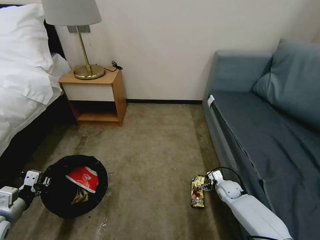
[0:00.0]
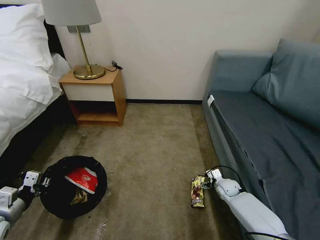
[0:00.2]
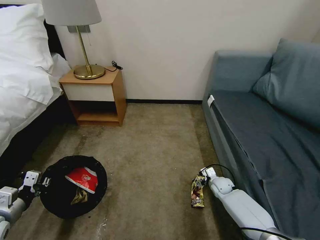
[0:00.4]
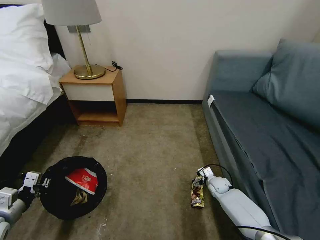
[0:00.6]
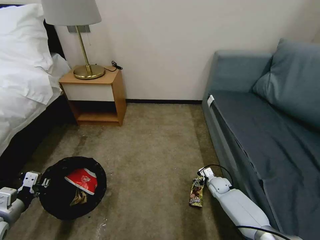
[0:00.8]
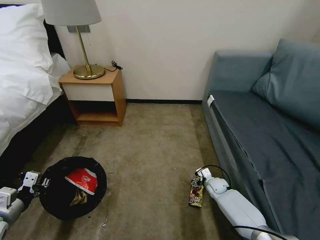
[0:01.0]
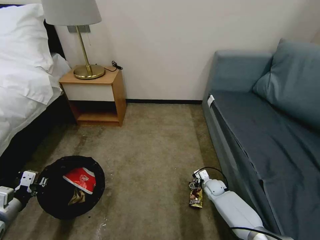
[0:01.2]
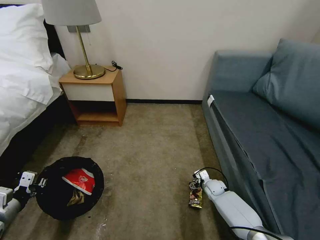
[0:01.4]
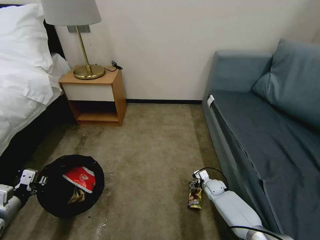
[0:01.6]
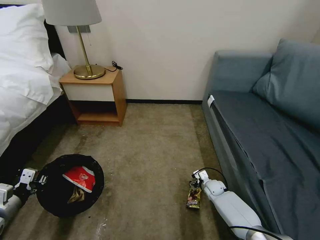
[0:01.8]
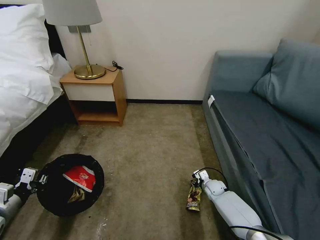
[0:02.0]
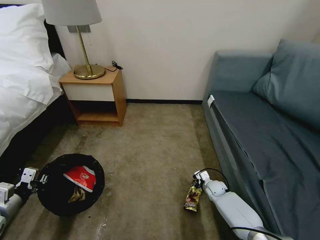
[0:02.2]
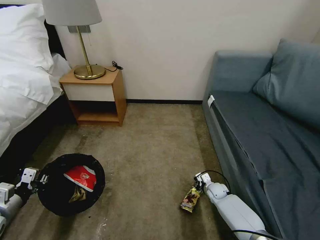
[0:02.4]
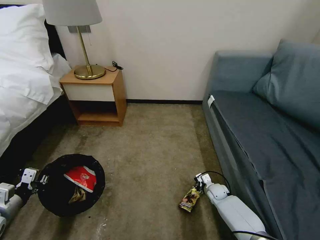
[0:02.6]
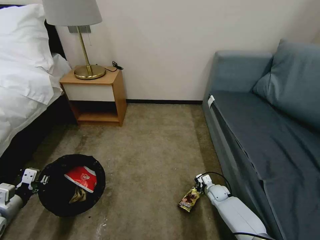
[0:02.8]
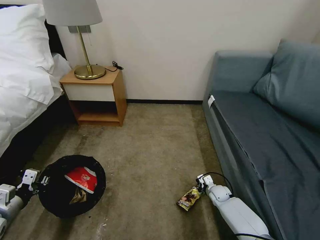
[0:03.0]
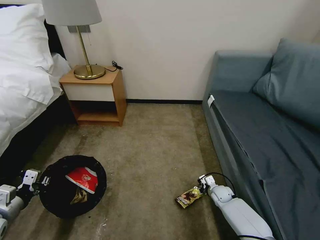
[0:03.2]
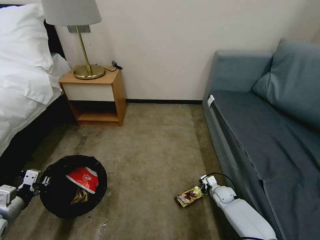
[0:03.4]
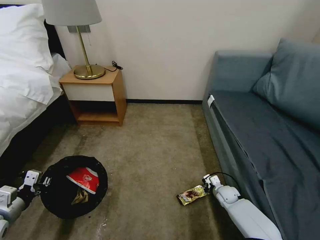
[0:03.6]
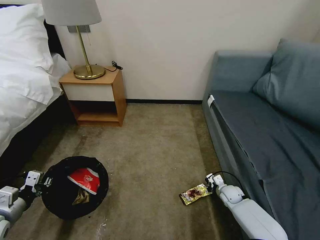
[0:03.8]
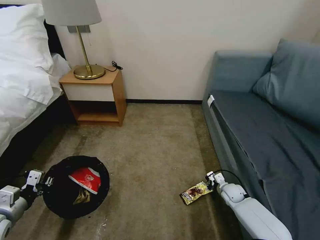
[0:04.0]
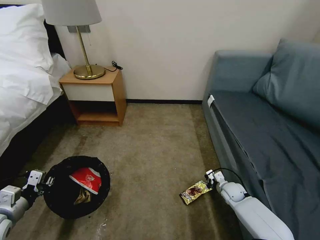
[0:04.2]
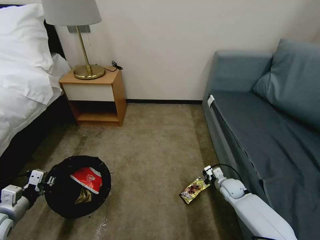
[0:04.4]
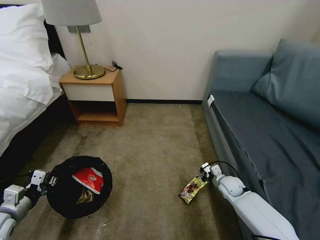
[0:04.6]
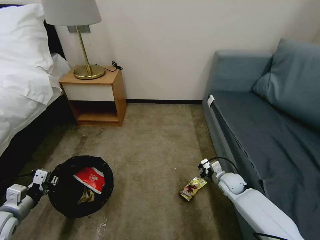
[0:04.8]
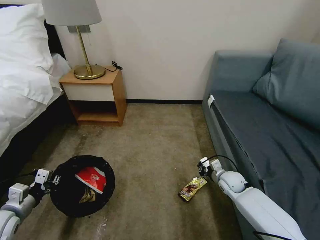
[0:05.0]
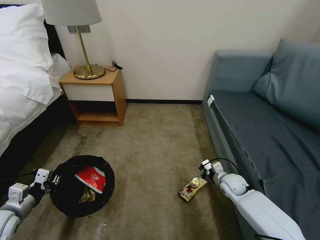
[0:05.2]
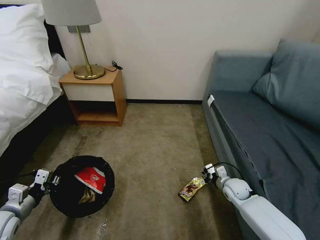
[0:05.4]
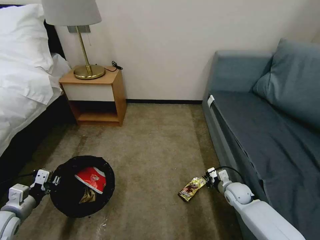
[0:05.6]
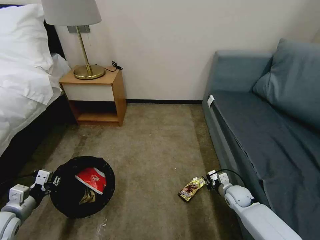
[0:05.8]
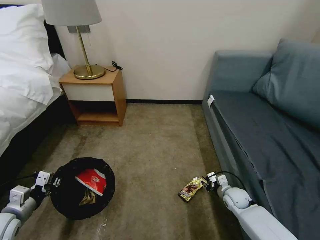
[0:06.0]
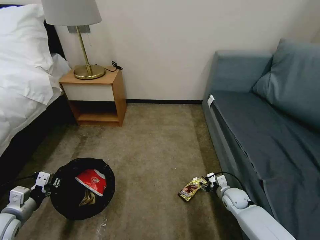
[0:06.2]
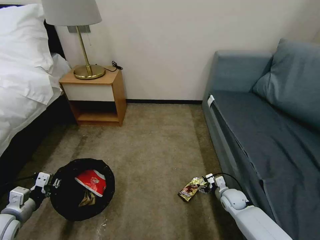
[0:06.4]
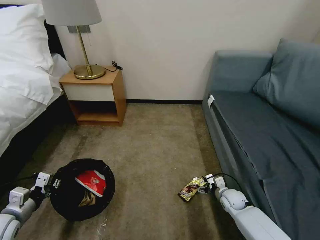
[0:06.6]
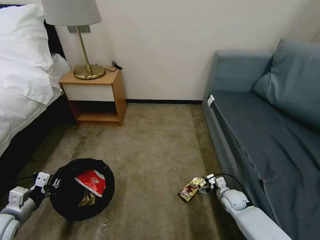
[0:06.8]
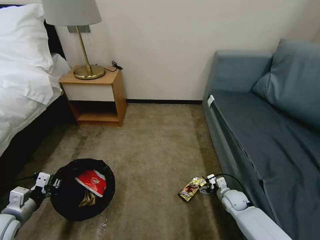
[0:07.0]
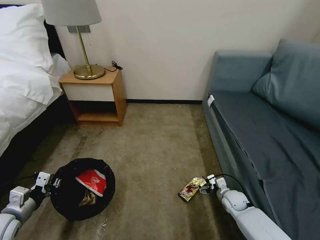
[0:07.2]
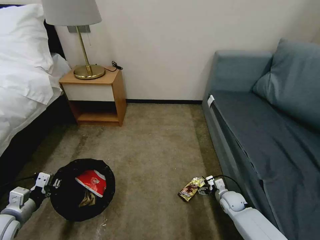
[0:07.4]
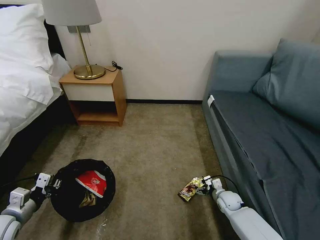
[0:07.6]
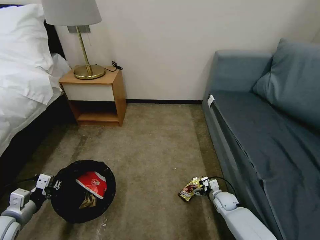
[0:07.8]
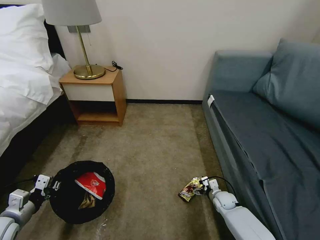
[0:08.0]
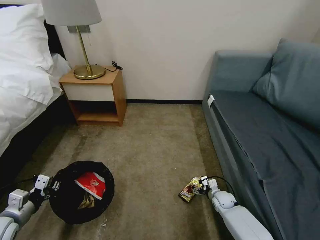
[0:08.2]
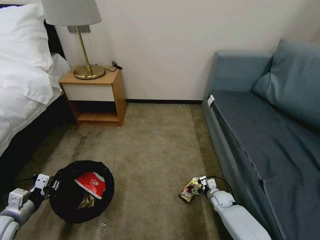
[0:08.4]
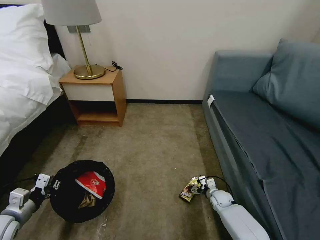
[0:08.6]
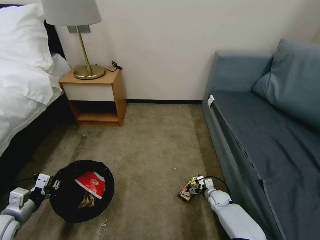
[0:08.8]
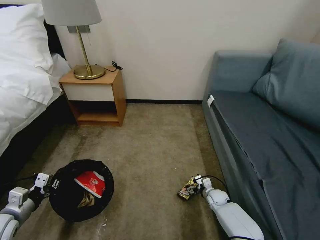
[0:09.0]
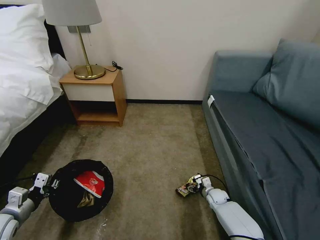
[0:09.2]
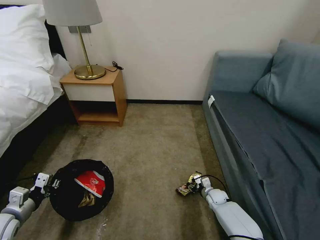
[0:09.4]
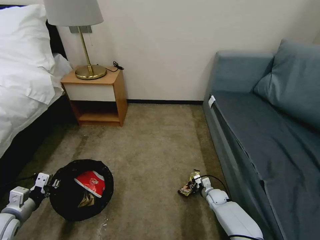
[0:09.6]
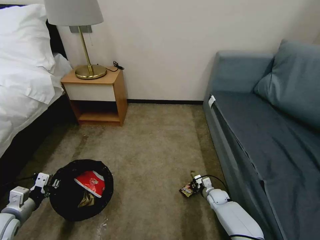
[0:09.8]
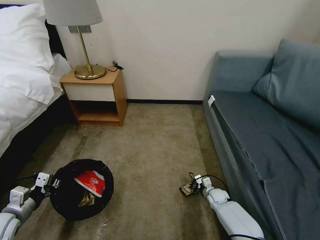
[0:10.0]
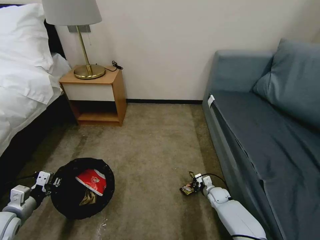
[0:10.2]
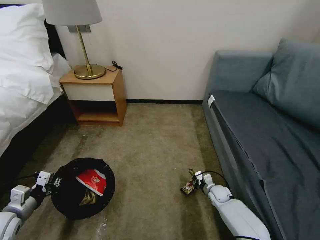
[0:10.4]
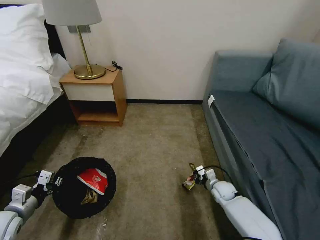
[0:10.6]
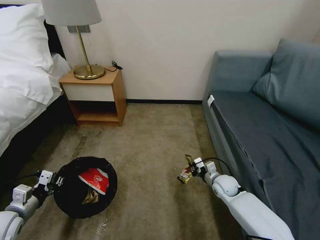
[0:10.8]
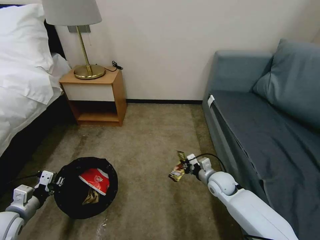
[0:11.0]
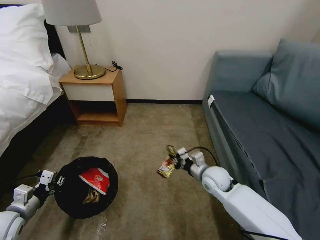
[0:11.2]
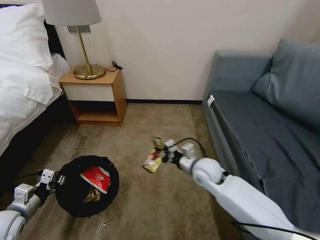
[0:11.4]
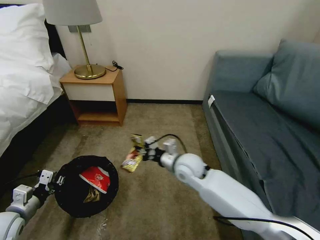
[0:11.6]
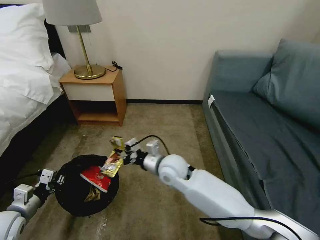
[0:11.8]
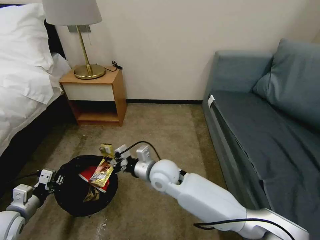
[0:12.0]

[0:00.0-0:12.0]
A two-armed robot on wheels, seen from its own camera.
Task of the whole recording: Pick up the trash bin, then pick up the garbage on the floor and place it into the trash bin.
0:00.0 to 0:01.6: The right gripper changes place by approximately 5 cm.
0:01.6 to 0:03.0: The right gripper closes up.
0:03.0 to 0:04.4: The right gripper is displaced upward by some 10 cm.
0:04.4 to 0:06.0: The right gripper opens its fingers.
0:06.0 to 0:07.6: The right gripper opens up.
0:07.6 to 0:09.0: The right gripper changes place by about 5 cm.
0:09.0 to 0:10.4: The right gripper closes.
0:10.4 to 0:12.0: The right gripper shifts about 40 cm to the left and upward.

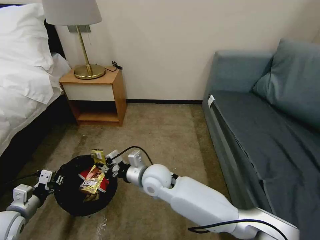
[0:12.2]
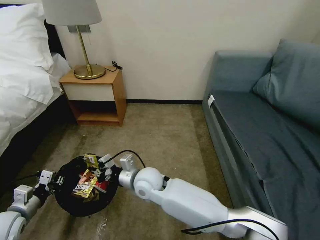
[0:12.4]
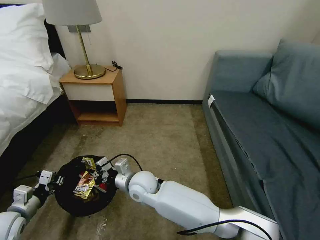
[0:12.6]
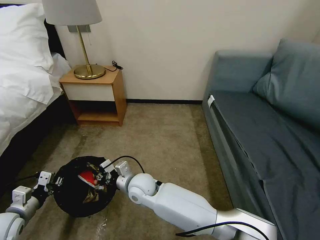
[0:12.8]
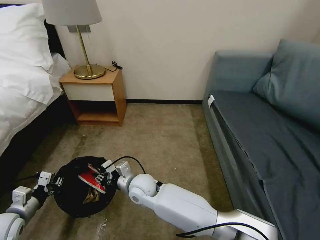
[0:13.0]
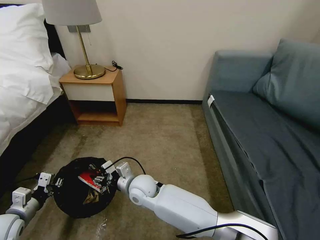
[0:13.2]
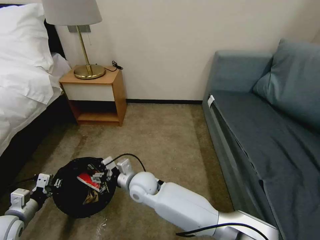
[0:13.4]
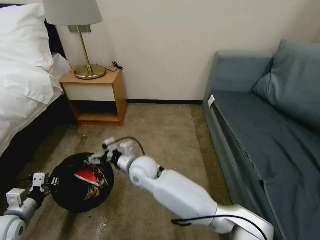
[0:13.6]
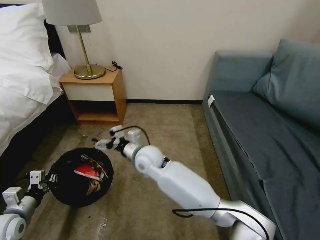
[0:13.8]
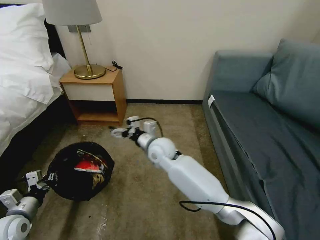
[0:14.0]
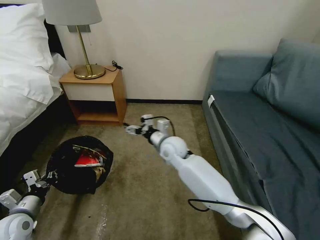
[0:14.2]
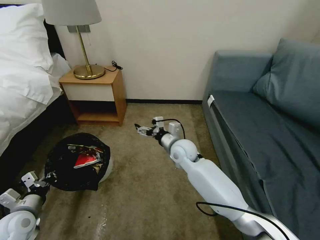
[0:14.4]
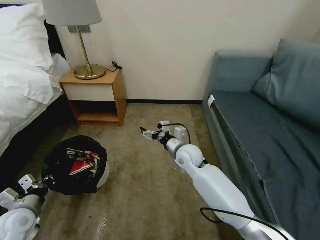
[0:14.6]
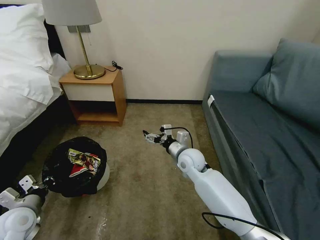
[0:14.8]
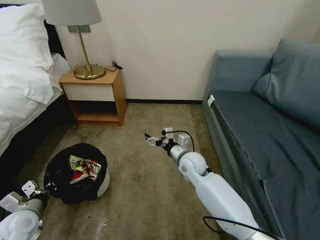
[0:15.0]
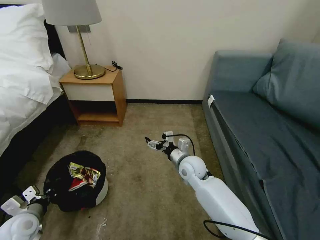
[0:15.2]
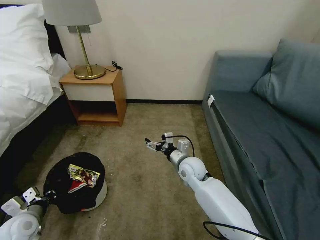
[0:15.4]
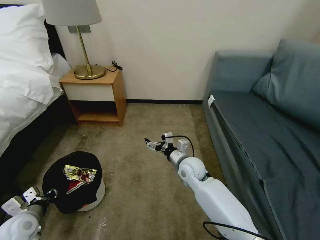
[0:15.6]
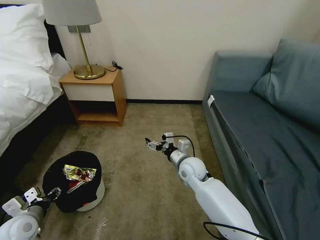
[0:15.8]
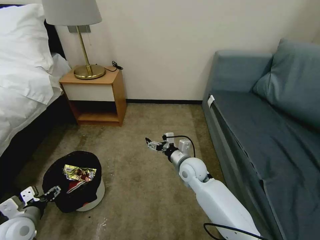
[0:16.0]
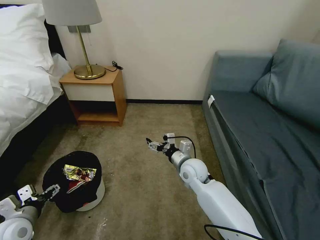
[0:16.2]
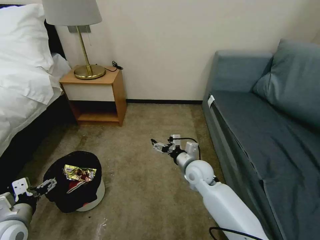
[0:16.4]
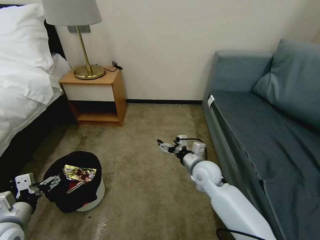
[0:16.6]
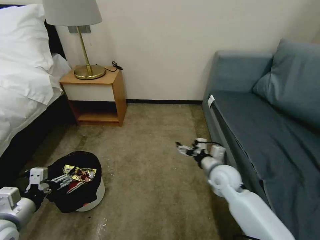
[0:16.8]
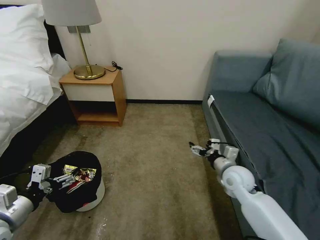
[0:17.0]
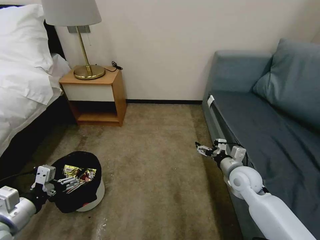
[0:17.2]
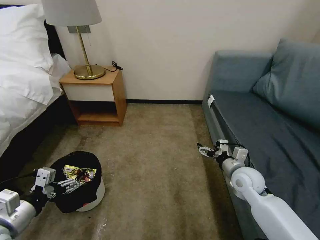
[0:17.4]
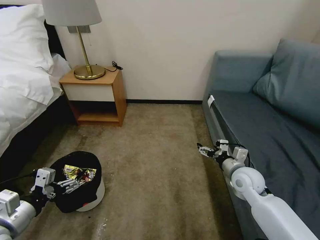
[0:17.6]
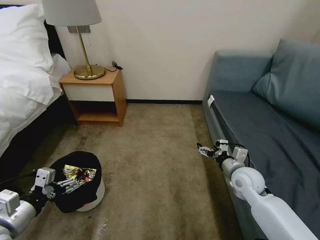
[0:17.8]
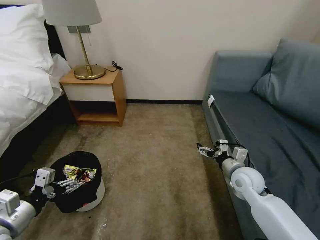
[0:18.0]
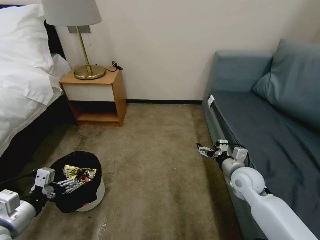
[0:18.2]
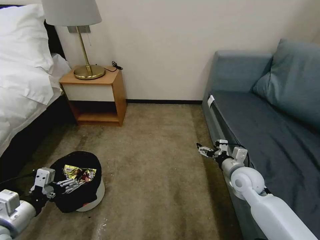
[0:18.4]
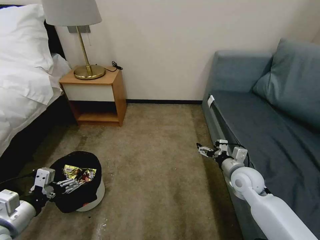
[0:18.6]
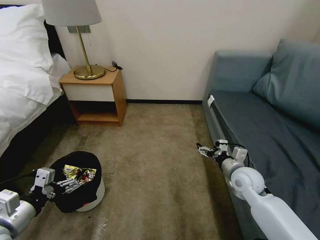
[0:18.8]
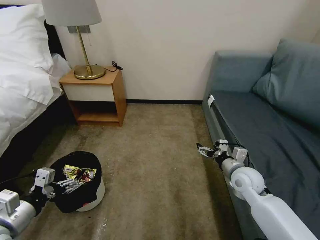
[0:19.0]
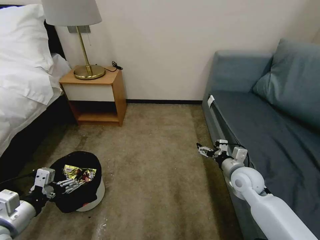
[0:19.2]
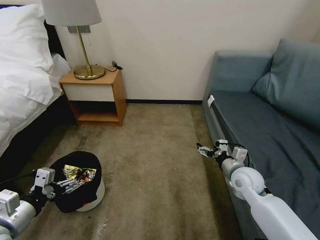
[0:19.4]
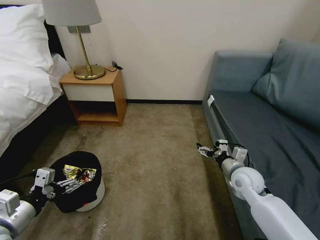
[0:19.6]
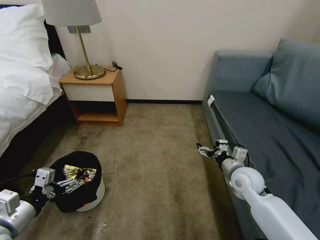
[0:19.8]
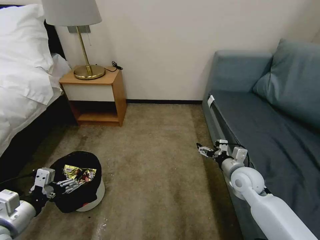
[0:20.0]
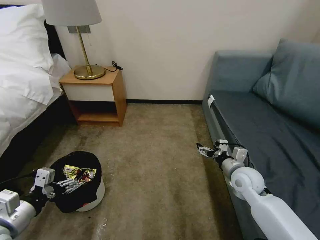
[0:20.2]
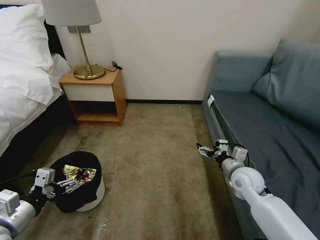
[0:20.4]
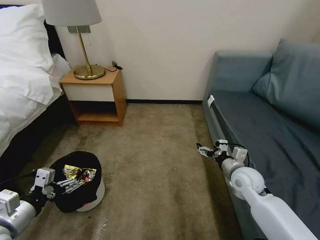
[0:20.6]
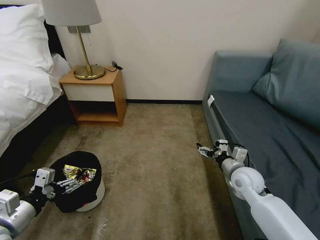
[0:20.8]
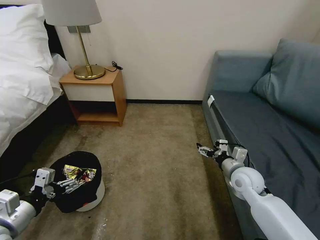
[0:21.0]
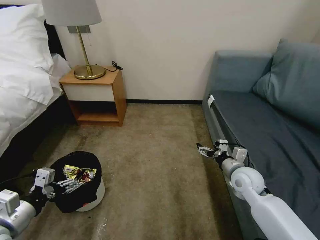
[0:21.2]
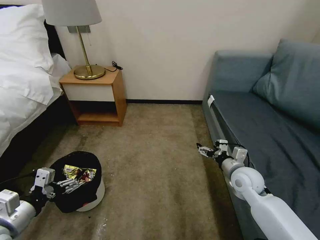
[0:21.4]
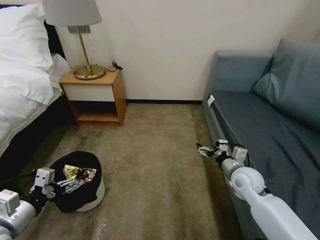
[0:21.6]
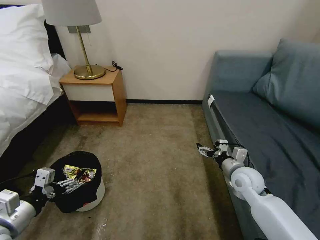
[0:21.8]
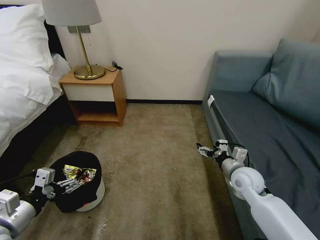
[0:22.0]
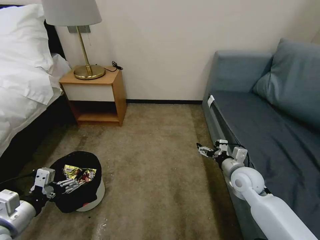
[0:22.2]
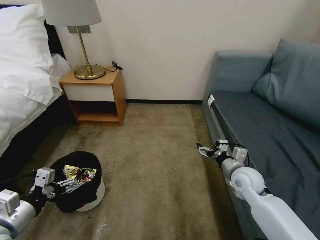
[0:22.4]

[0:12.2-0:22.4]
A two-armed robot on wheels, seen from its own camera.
Task of the whole recording: Pick up the trash bin, then pick up the garbage on the floor and place it into the trash bin.
0:12.2 to 0:13.6: The right gripper changes place by some 5 cm, and opens up.
0:13.6 to 0:15.2: The right gripper is displaced to the right by approximately 20 cm.
0:15.2 to 0:16.6: The left gripper shifts approximately 10 cm upward, and opens its fingers, while the right gripper goes roughly 5 cm to the right.
0:16.6 to 0:18.0: The right gripper goes about 10 cm to the right.
0:18.0 to 0:22.4: Both grippers stay about where they are.
